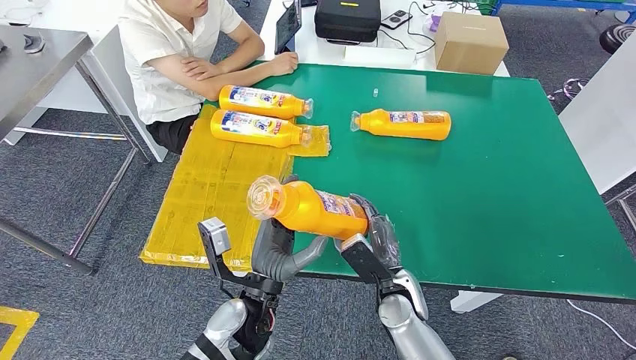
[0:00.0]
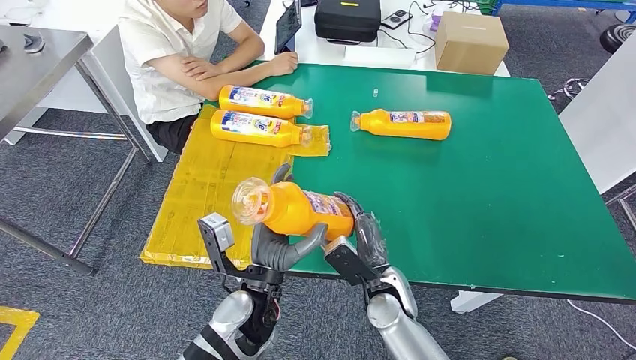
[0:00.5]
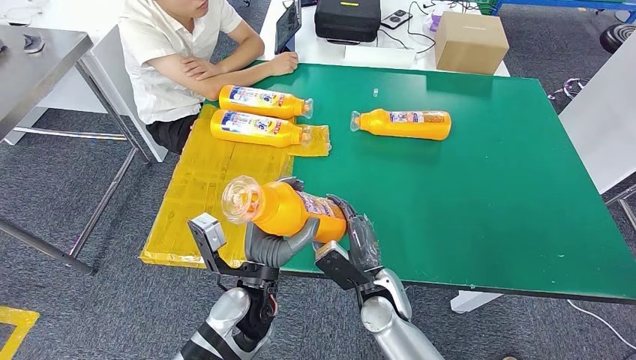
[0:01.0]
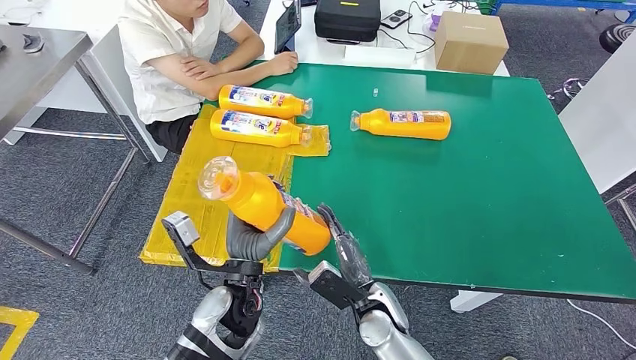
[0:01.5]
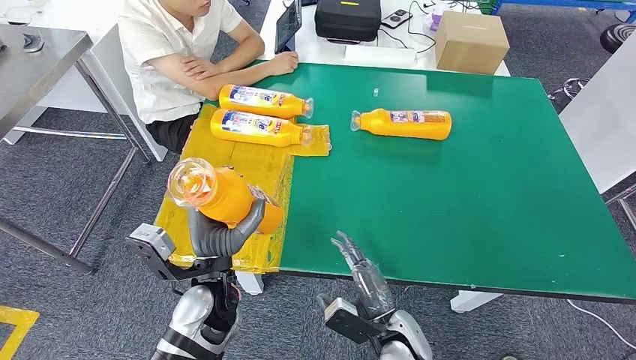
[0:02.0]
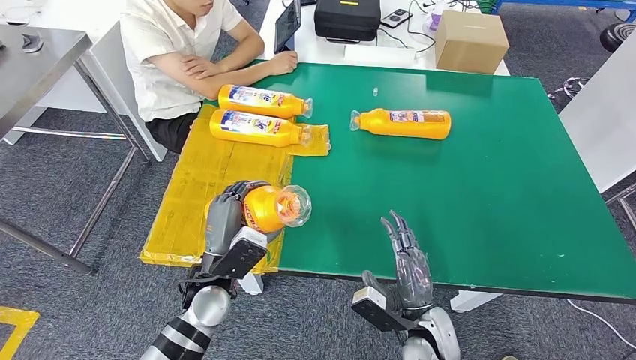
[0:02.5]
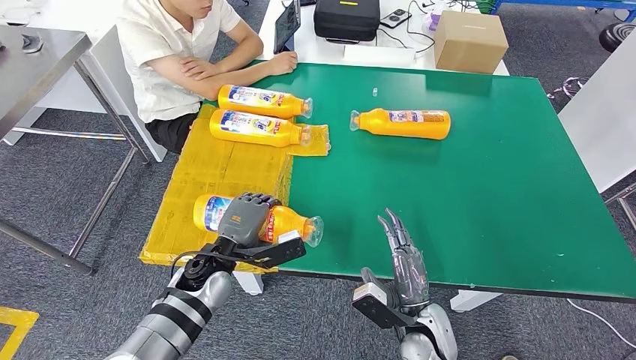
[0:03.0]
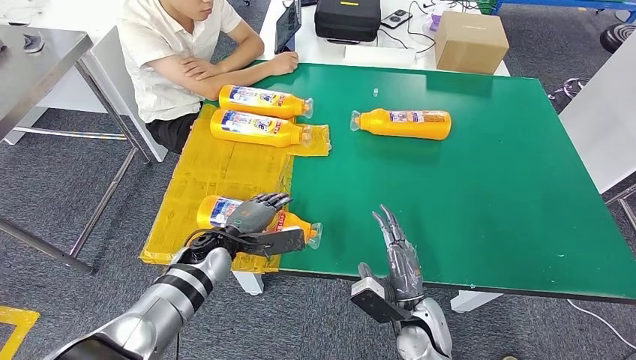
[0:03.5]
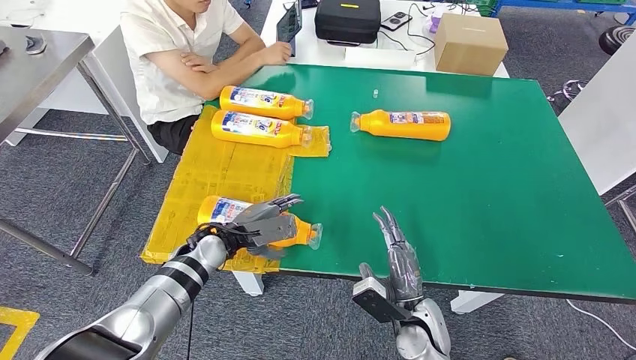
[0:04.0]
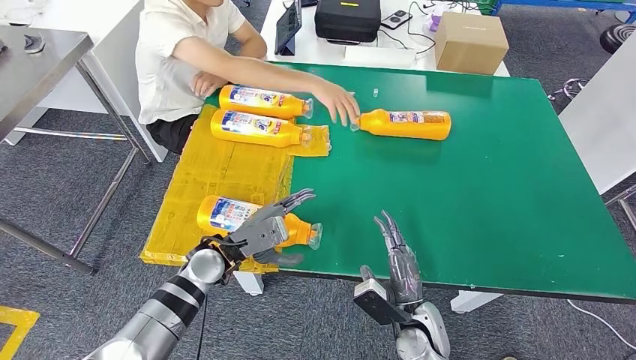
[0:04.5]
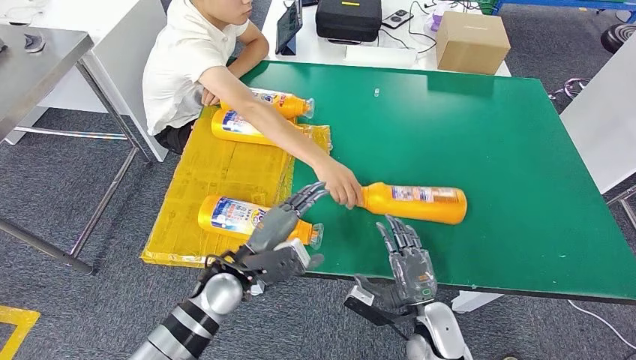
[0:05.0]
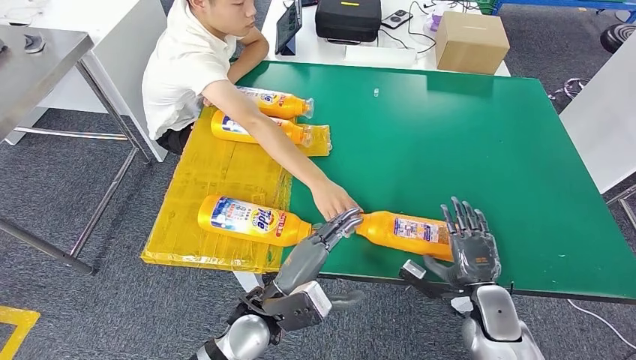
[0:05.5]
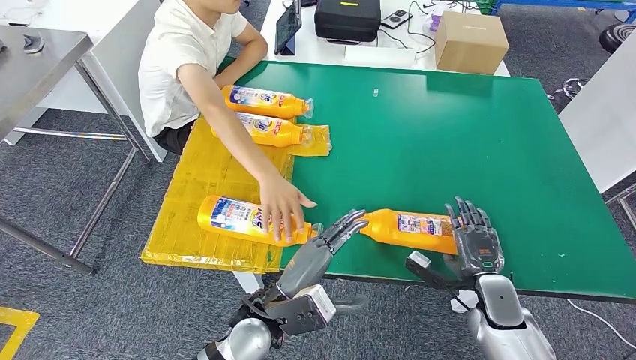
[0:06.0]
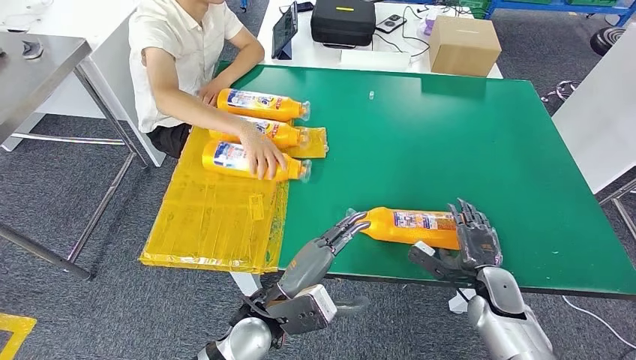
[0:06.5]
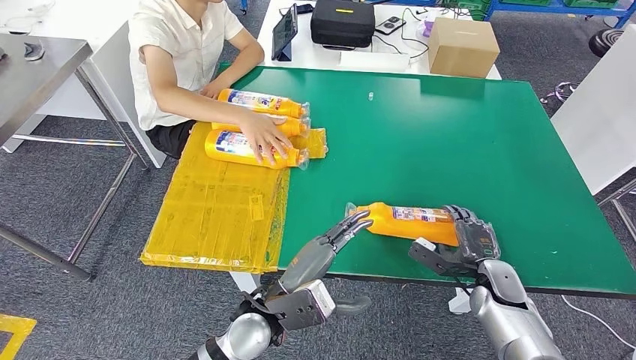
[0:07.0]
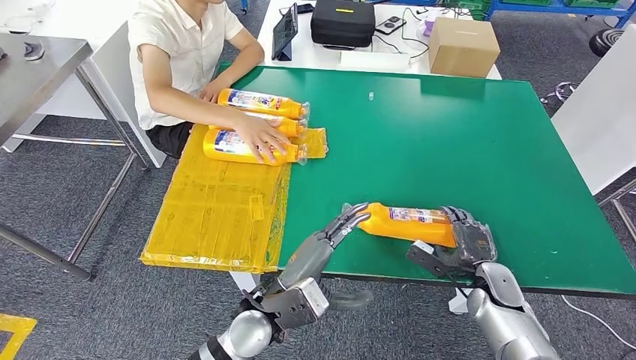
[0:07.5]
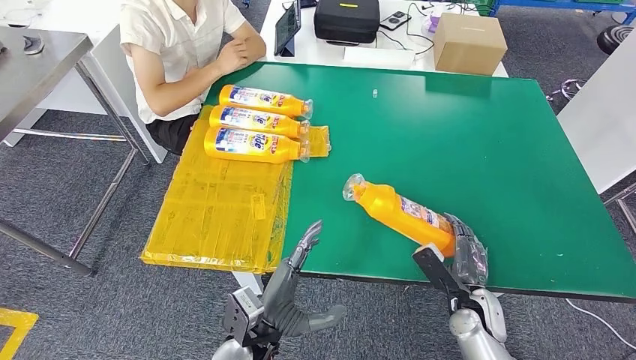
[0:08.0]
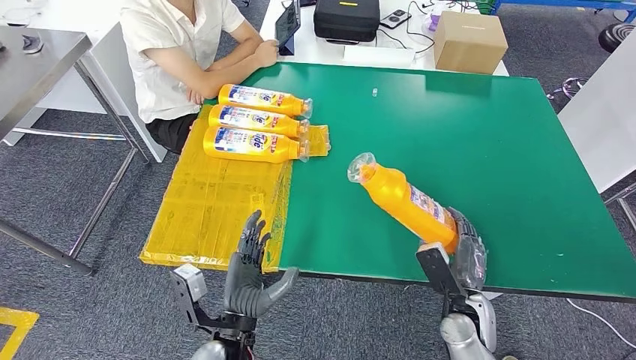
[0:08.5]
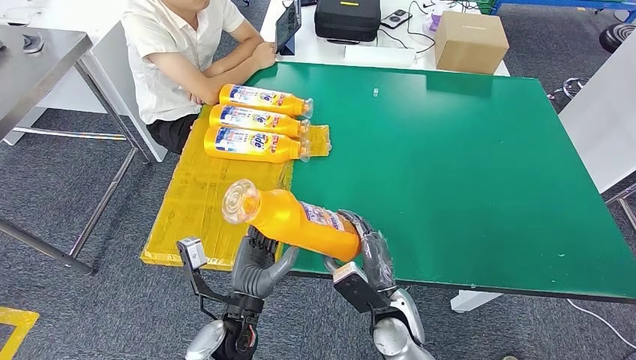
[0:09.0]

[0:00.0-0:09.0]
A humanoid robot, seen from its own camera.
Step, 0:00.0 to 0:03.5: Flip the fast-moving consumer goods bottle to the front side.
Step, 0:04.0 to 0:08.0: Pick up the fast-moving consumer goods bottle from the table.
0:00.0 to 0:02.0: The right hand shifts approximately 5 cm backward, while the left hand goes roughly 5 cm to the left.
0:02.0 to 0:04.5: The left hand is displaced forward by some 5 cm.

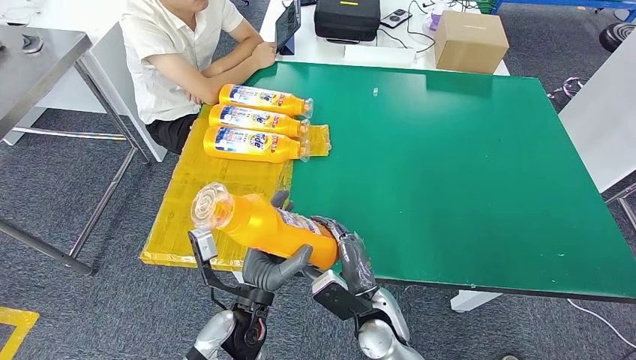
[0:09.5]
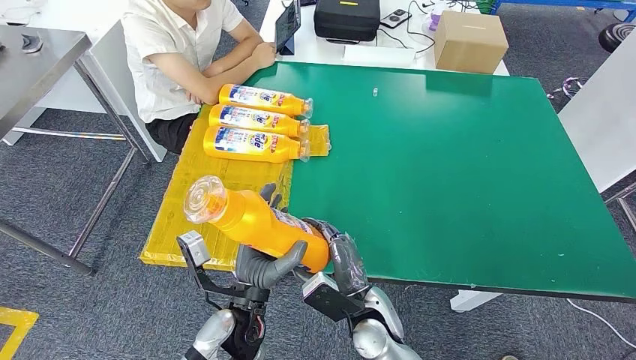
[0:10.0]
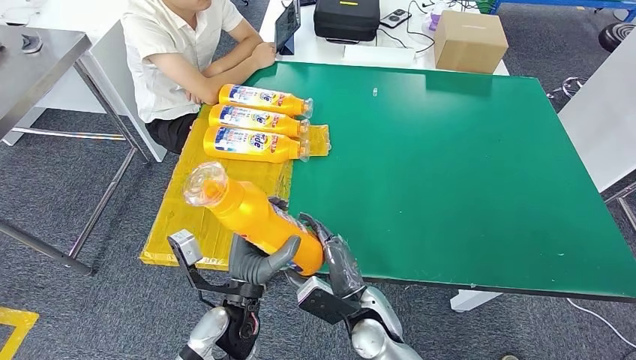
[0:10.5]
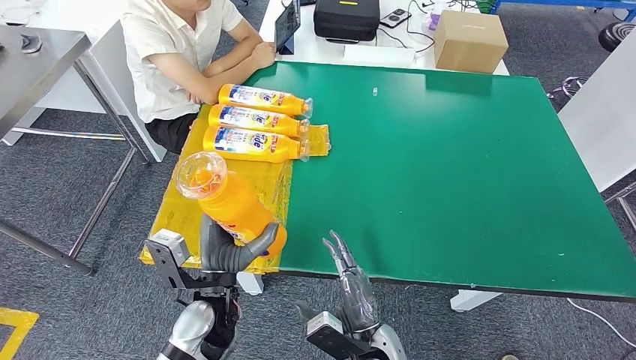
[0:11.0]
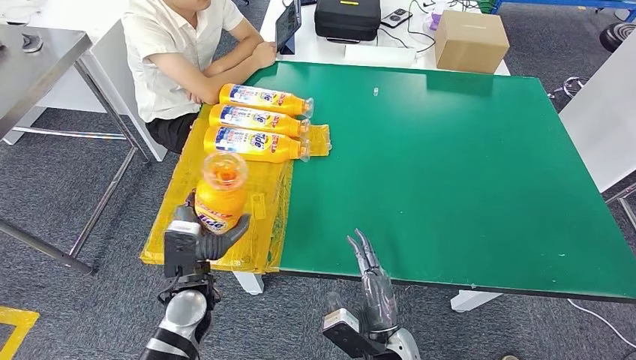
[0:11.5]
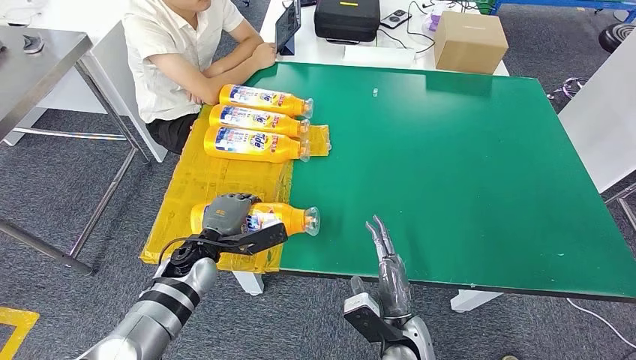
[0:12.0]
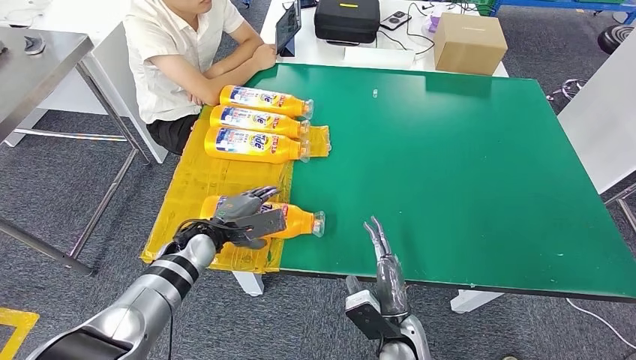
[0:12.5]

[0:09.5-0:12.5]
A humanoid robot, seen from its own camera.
Step, 0:09.5 to 0:12.5: Flip the fast-moving consumer goods bottle to the front side.
0:09.5 to 0:11.0: The right hand travels backward by some 5 cm, while the left hand ends up roughly 5 cm from where it was.
0:11.0 to 0:12.5: The left hand shifts some 15 cm forward and to the left.
